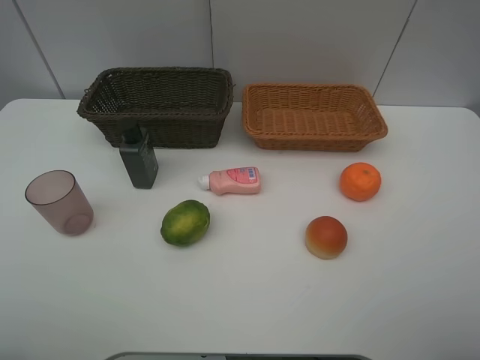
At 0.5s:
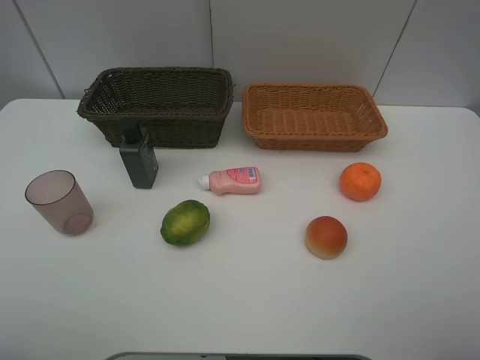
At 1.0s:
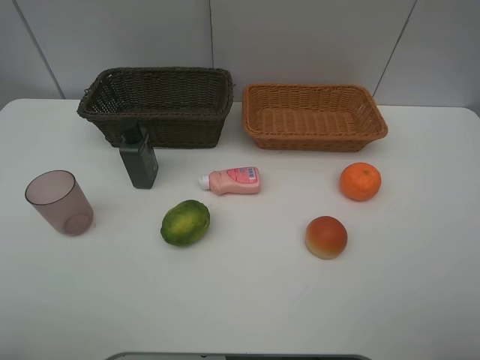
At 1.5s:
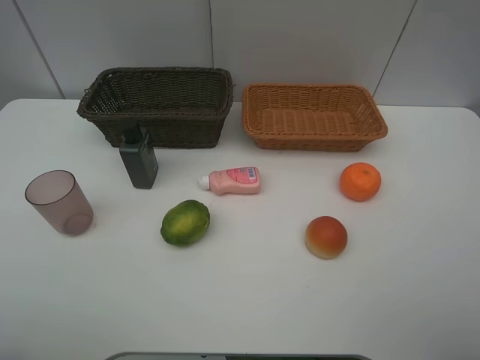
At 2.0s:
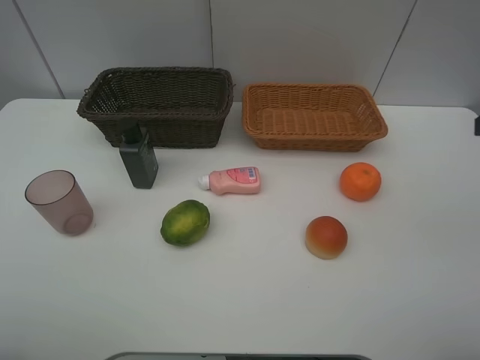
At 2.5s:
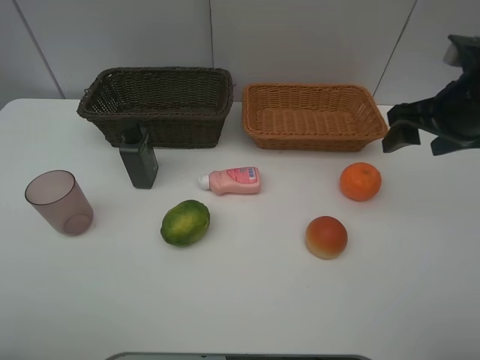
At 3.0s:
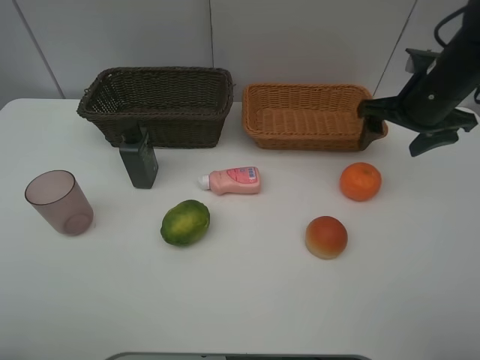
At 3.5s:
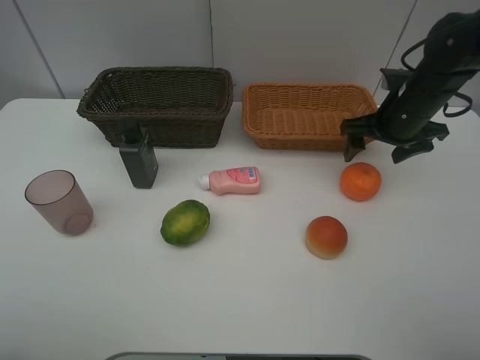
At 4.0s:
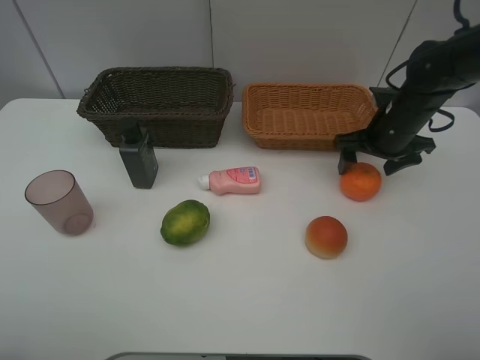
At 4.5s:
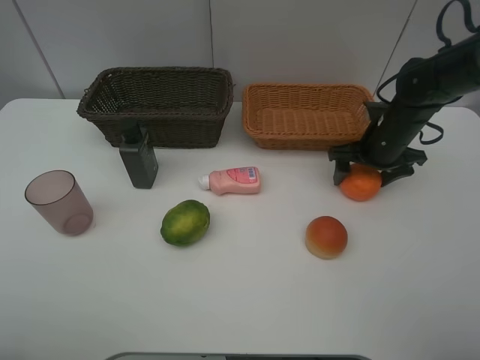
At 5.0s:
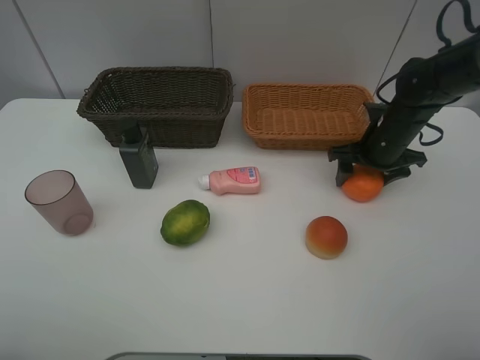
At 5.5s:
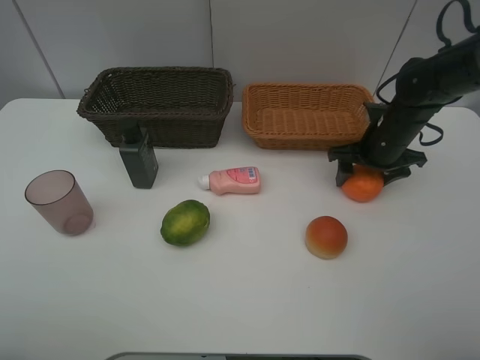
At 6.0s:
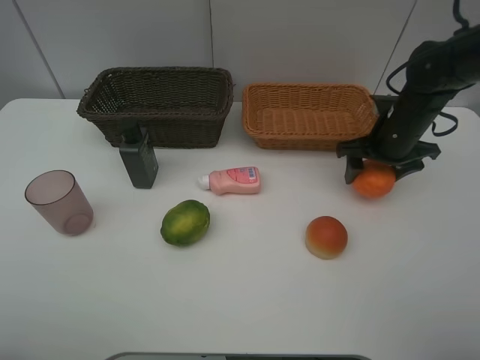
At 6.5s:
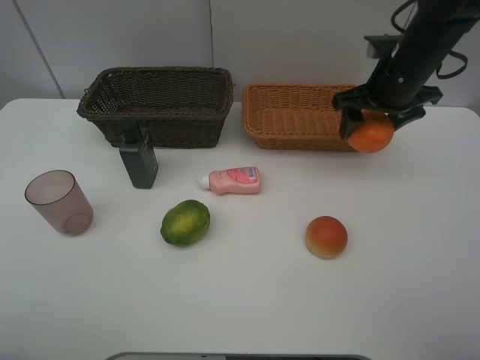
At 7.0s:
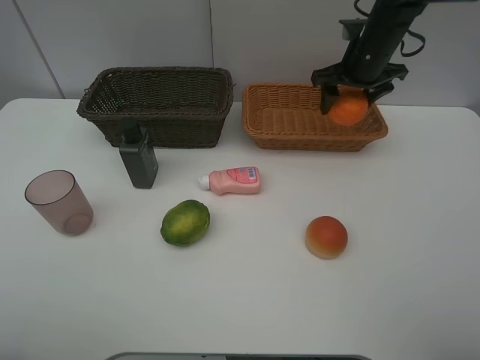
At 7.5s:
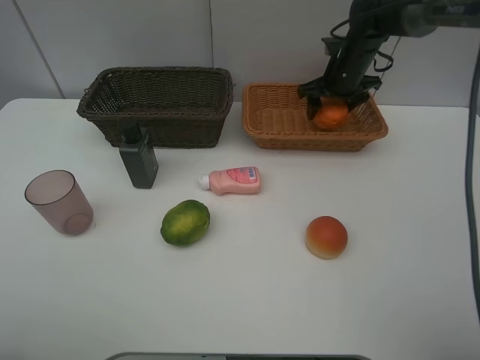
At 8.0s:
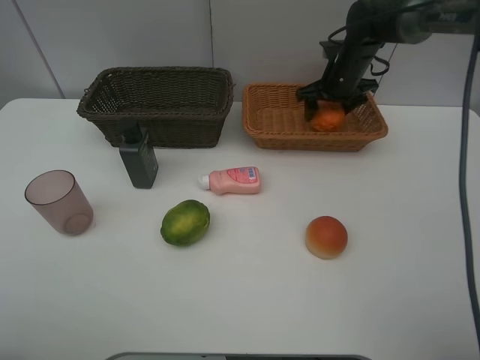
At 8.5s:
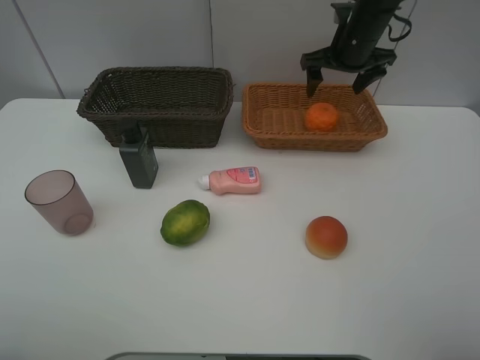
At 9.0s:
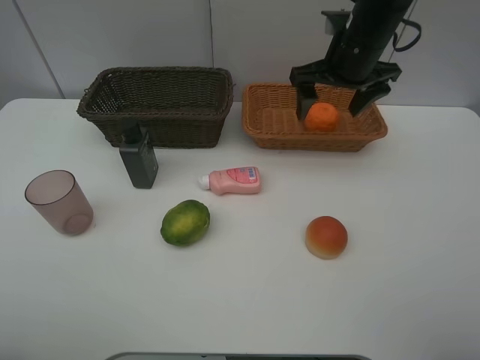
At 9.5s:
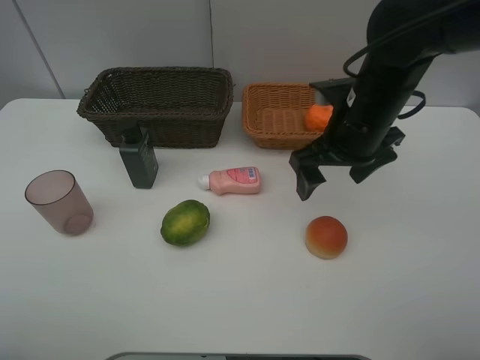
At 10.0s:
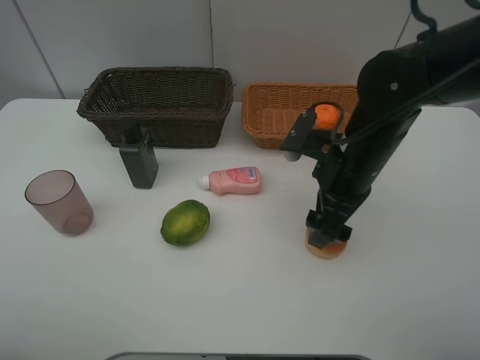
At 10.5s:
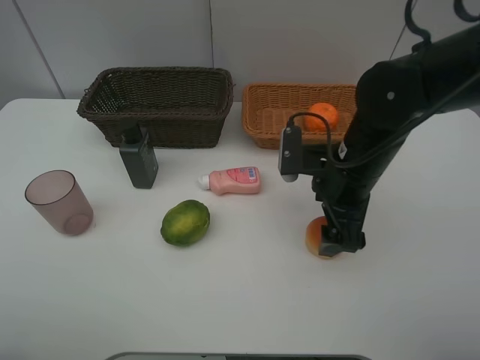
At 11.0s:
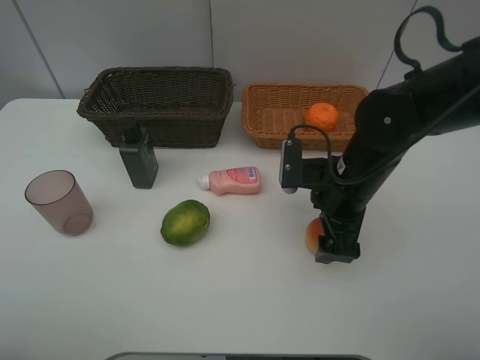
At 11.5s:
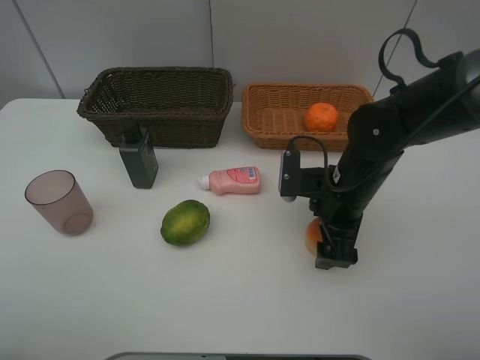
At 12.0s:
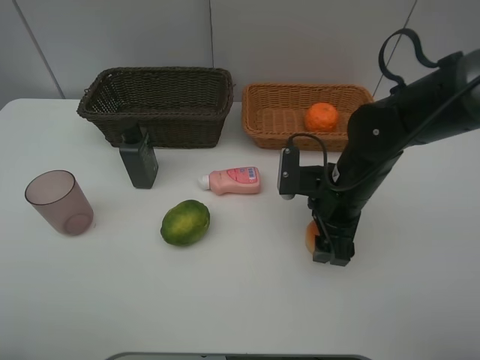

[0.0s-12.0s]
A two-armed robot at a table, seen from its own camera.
Task of the whole recording: place multiple objects separately in different baskets.
Step, 0.0s to 6.0s: Pick up the orange with right gripper.
Step, 6.5s to 8.0s: Place the orange in the light basket with right gripper.
2.0s to 4.0s: The right gripper moves forward and downward, some 25 cm.
4.0s to 6.0s: The grippers stay close to where they were, moving slightly.
6.0s to 8.0s: The right gripper heads forward, covering approximately 15 cm.
8.0s to 10.0s: The right gripper shifts roughly 25 cm backward.
10.0s to 12.0s: The right gripper heads downward, covering approximately 5 cm, and closes its fingers.

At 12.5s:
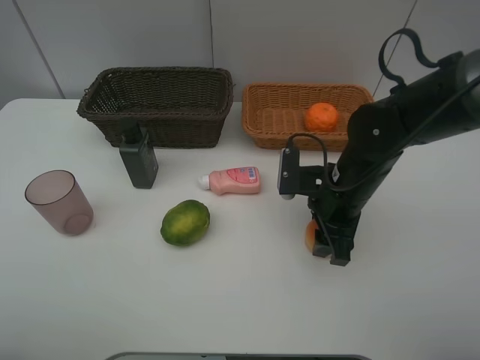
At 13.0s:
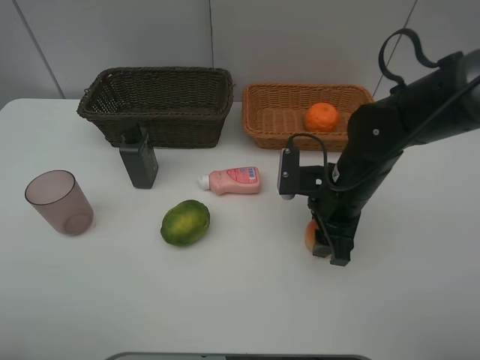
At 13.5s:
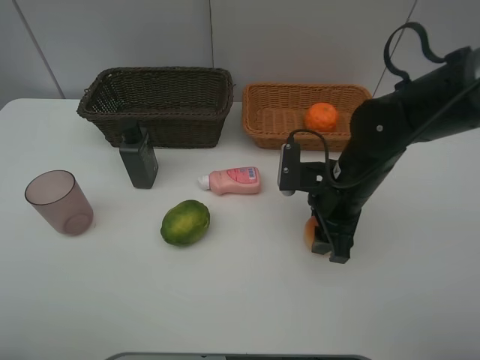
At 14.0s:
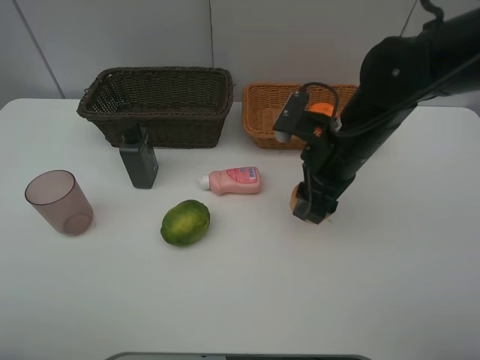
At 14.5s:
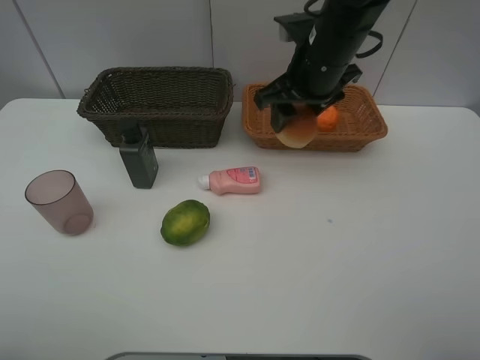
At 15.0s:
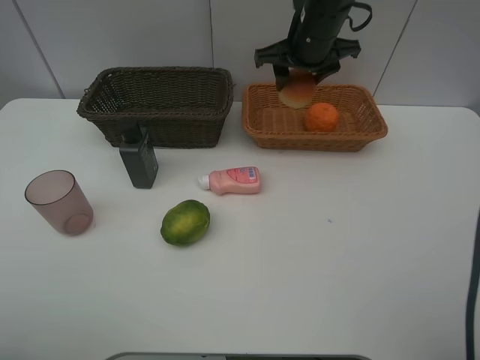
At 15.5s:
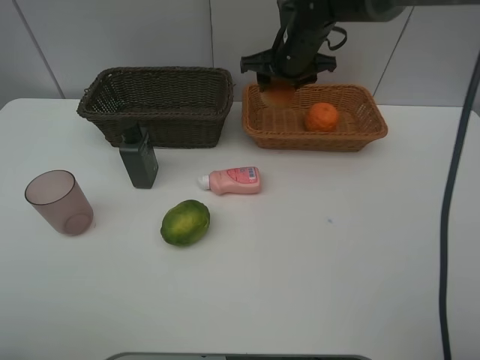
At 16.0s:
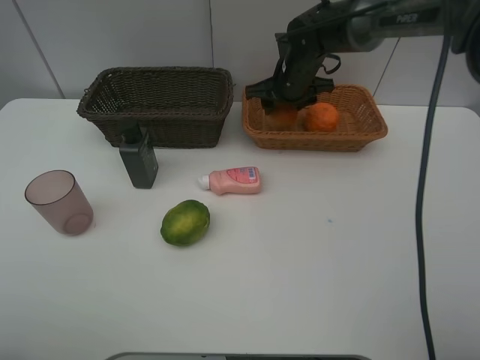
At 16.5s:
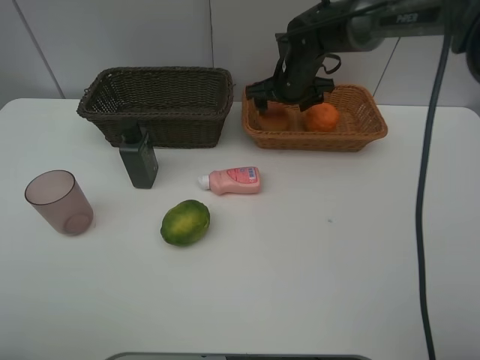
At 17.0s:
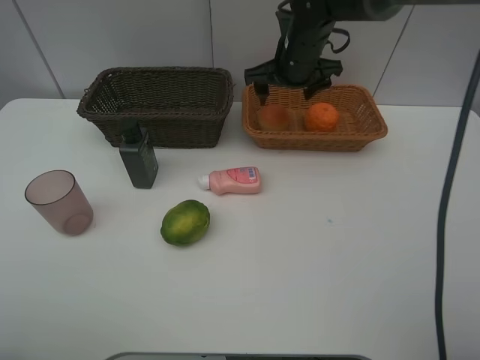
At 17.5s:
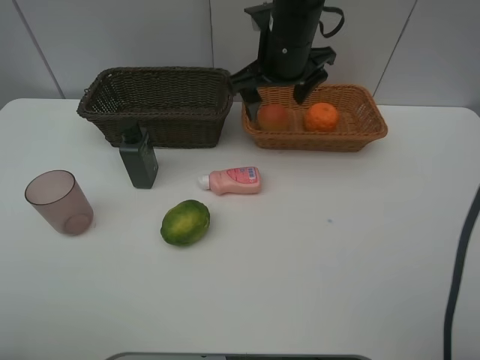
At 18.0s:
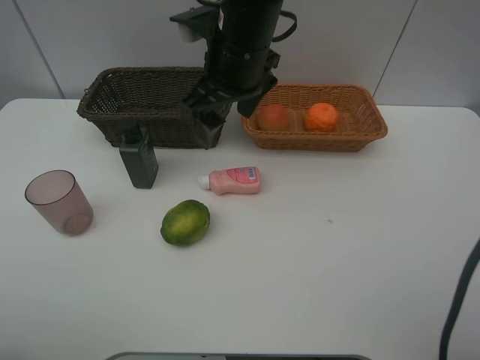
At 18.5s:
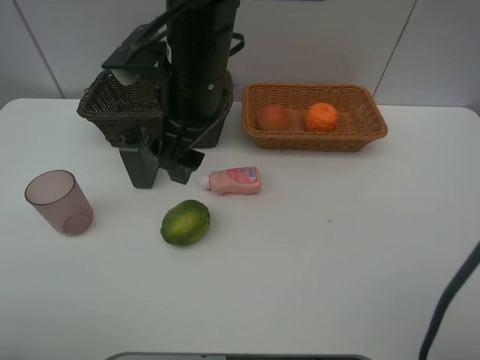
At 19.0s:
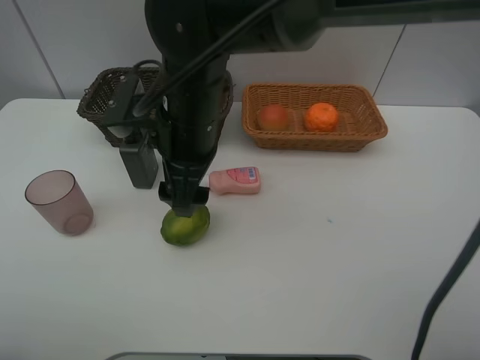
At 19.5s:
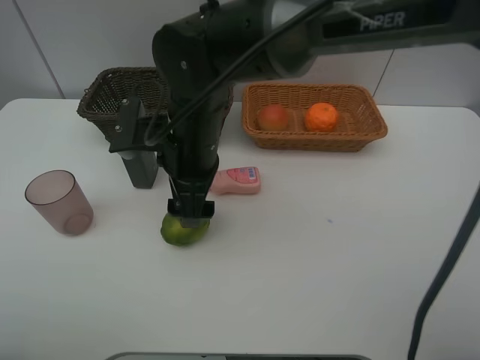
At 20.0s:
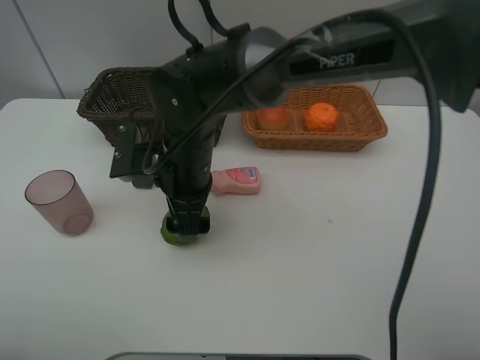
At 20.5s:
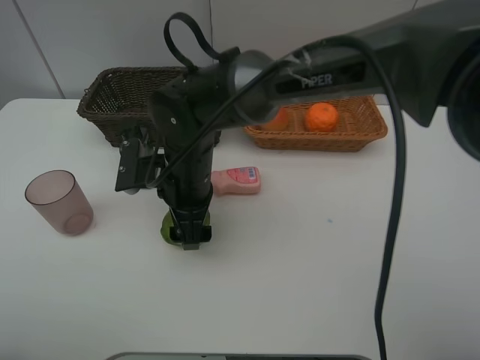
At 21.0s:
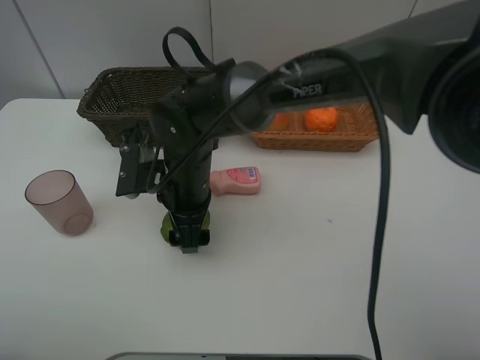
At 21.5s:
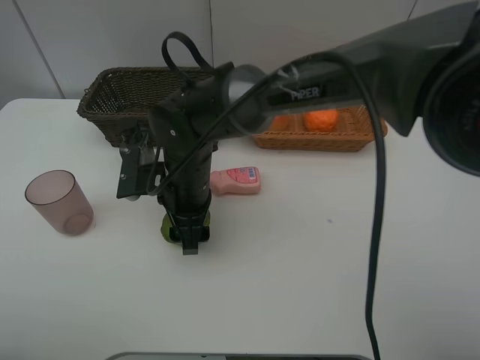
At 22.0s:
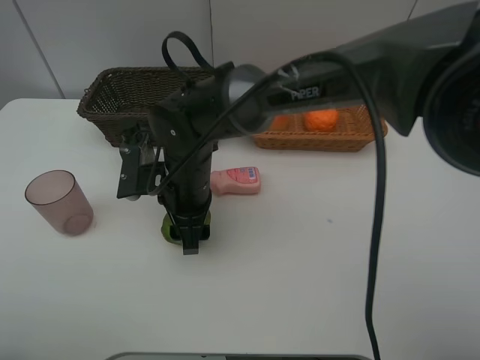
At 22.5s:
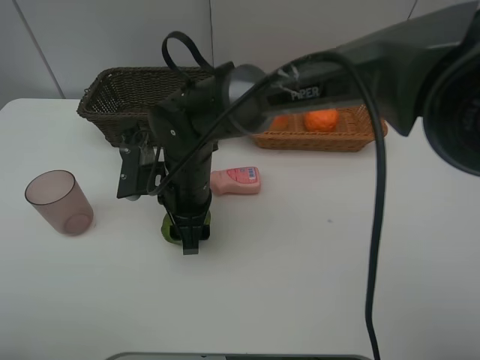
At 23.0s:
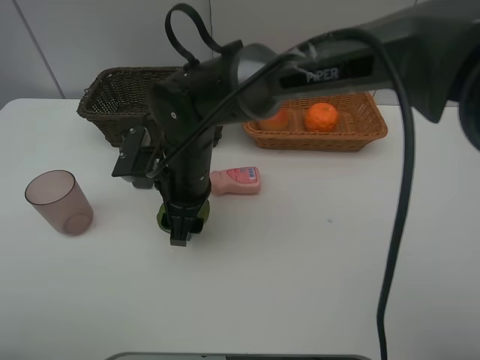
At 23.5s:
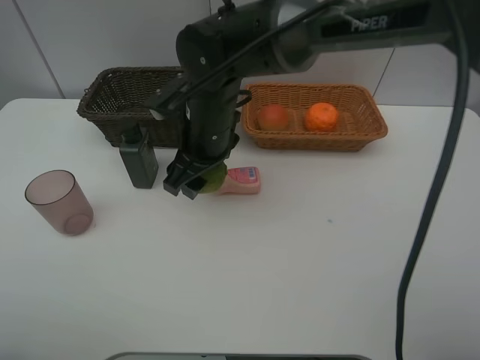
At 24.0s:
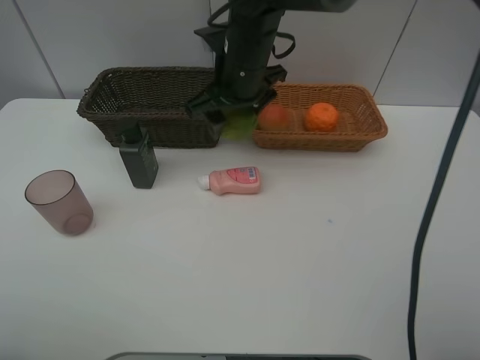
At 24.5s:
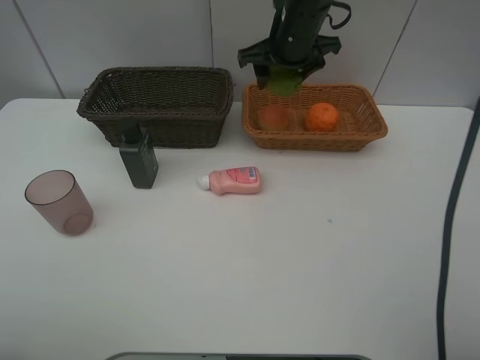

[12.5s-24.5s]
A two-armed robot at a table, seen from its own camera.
Task of the whole recording: place multiple objects separately in different baskets.
Step, 14.0s to 16.5s: Place the bread in the light basket with right gripper.
Step, 17.0s to 23.0s: Pick up the lime with right gripper.
12.5s to 14.5s: The right gripper shifts some 15 cm upward and forward.
14.5s to 16.5s: The right gripper heads forward and downward, covering some 15 cm, and opens its fingers.
16.5s to 18.5s: The right gripper heads backward, to the left and upward, covering about 25 cm.
18.5s to 20.5s: The right gripper goes roughly 10 cm downward.
20.5s to 22.5s: The right gripper closes.
22.5s to 24.5s: The right gripper travels forward, to the right and upward by approximately 25 cm.

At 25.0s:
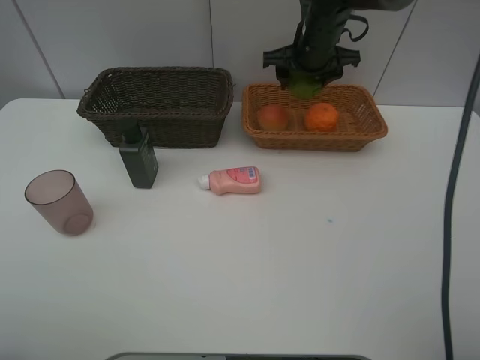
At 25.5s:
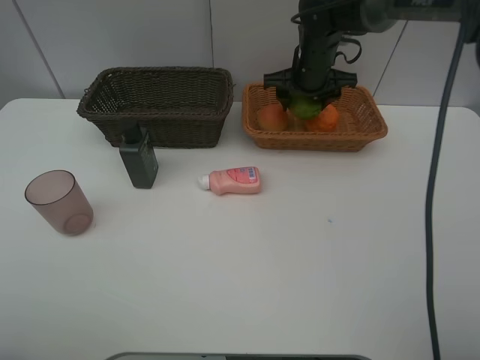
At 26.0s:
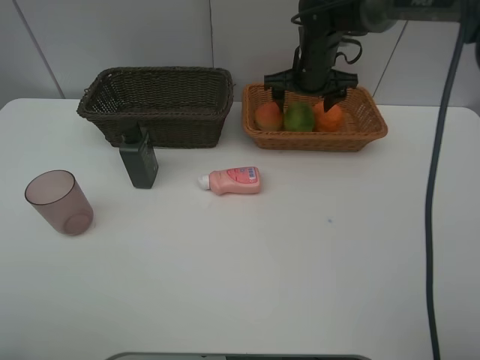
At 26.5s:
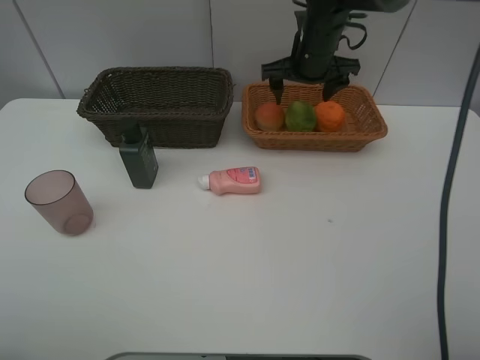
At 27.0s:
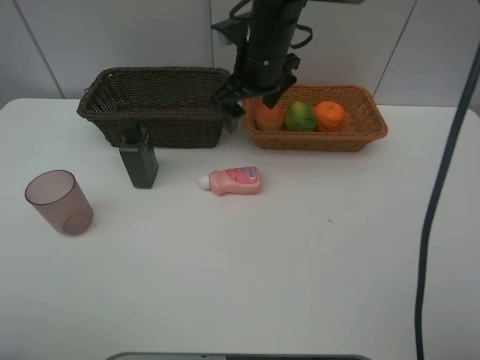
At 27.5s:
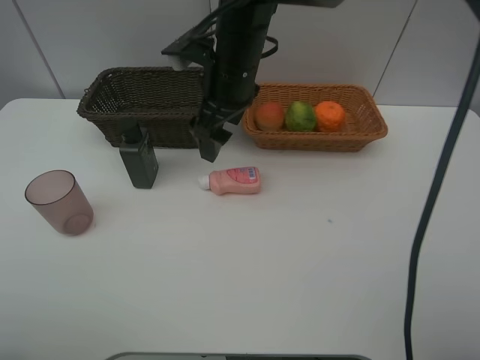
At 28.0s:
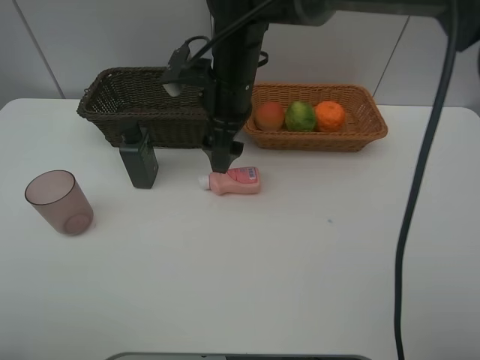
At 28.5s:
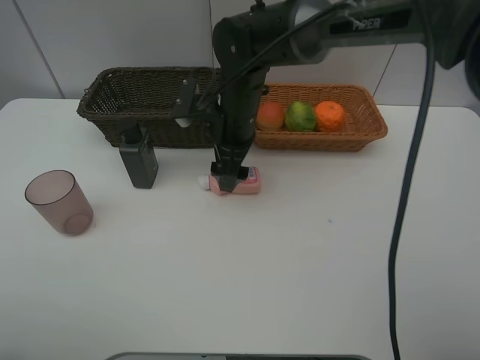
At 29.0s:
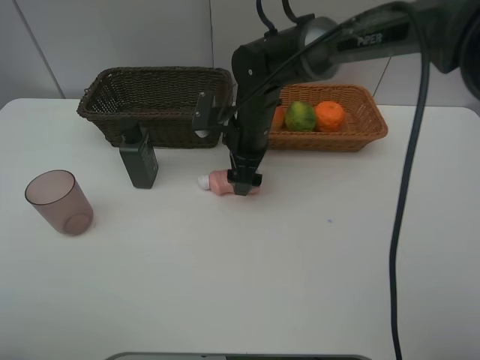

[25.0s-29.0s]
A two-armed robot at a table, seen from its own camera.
Task of the whole recording: place multiple objects separately in different baskets.
25.0s to 27.0s: The right gripper travels to the left and backward by about 15 cm, and opens its fingers.
27.0s to 29.0s: The right gripper travels downward by approximately 10 cm.
